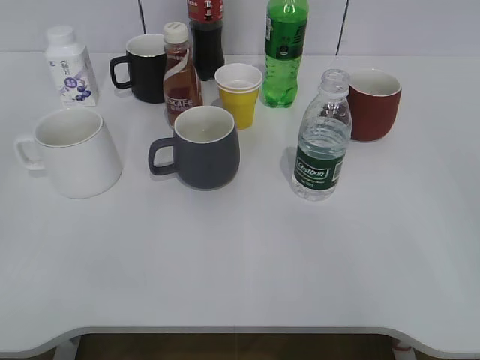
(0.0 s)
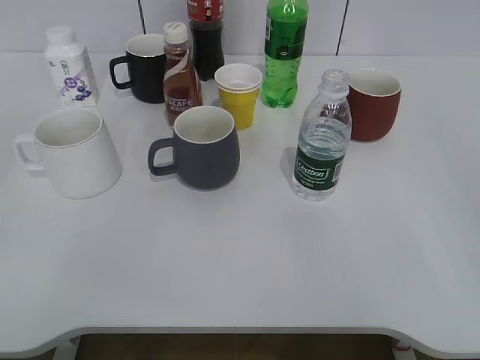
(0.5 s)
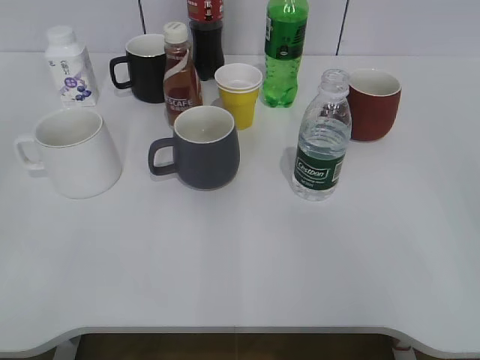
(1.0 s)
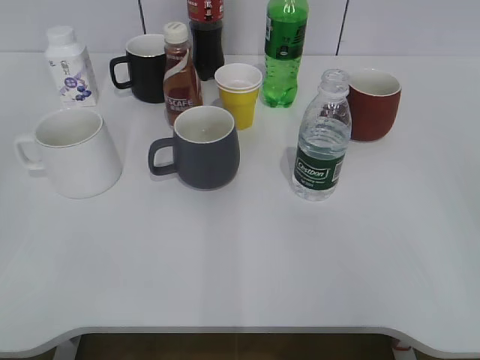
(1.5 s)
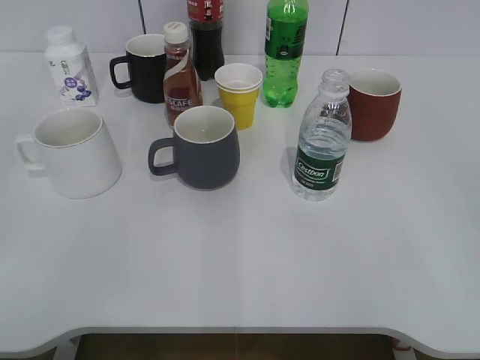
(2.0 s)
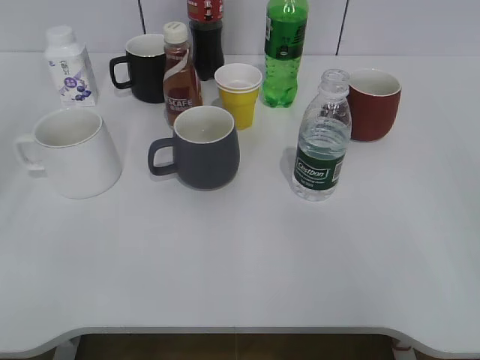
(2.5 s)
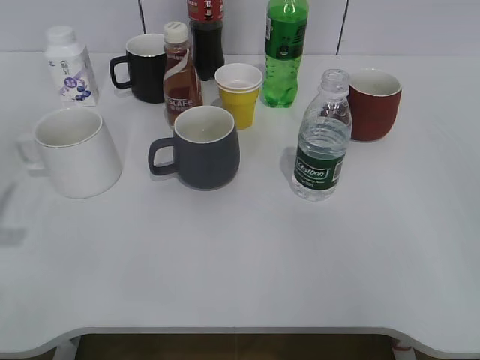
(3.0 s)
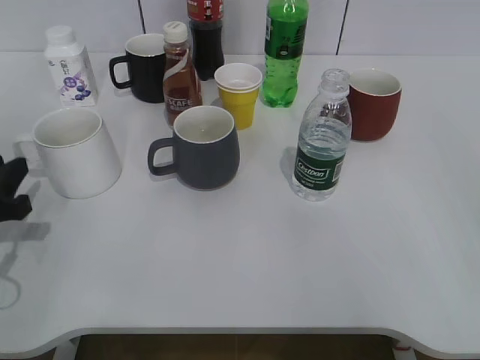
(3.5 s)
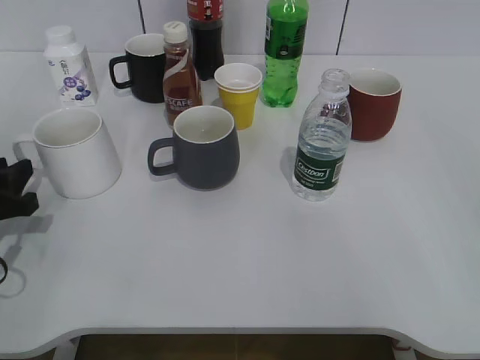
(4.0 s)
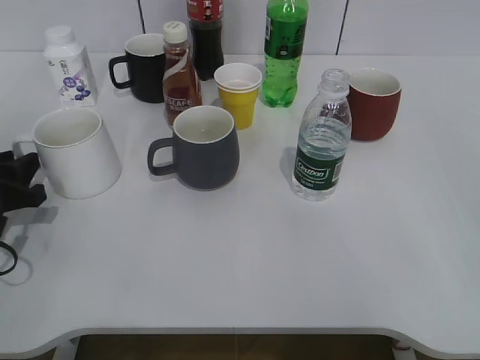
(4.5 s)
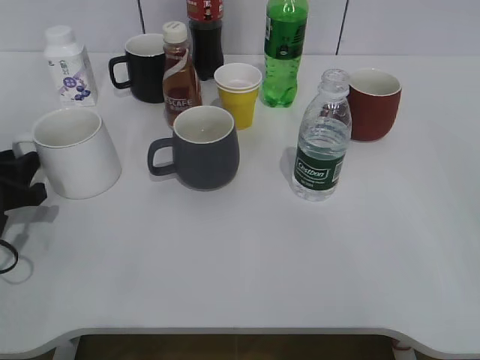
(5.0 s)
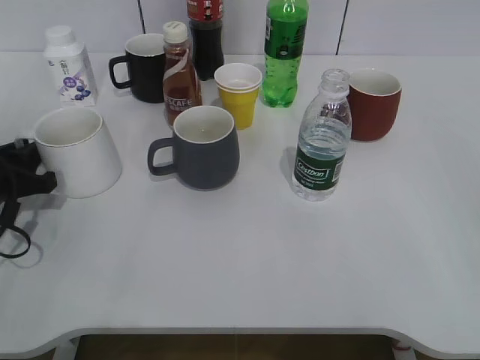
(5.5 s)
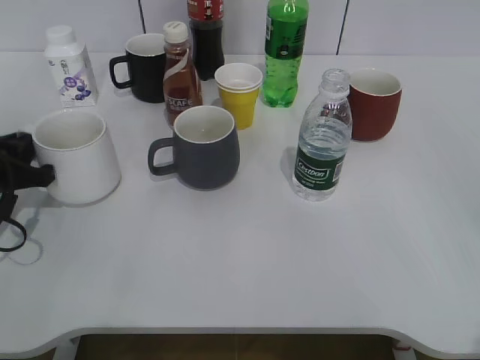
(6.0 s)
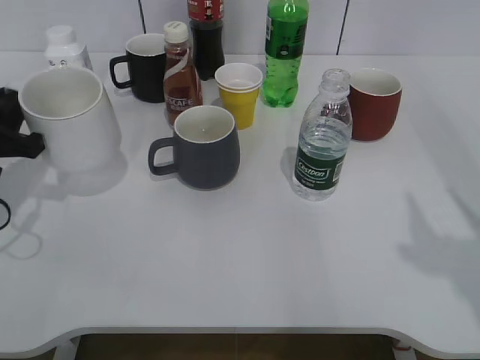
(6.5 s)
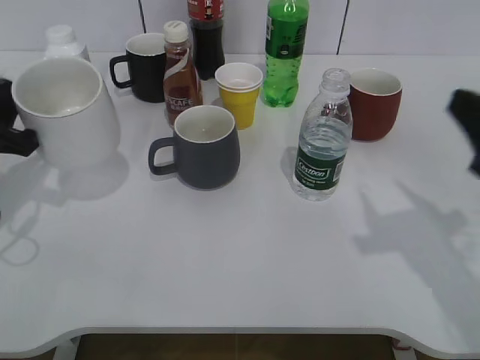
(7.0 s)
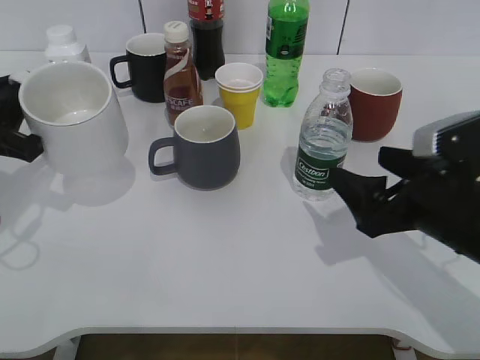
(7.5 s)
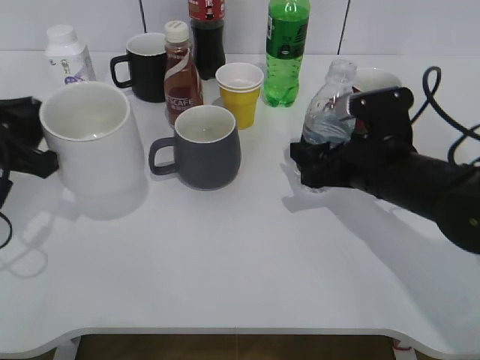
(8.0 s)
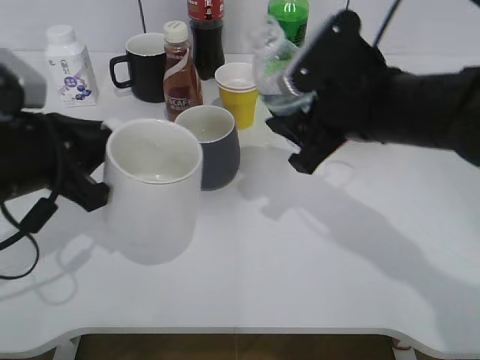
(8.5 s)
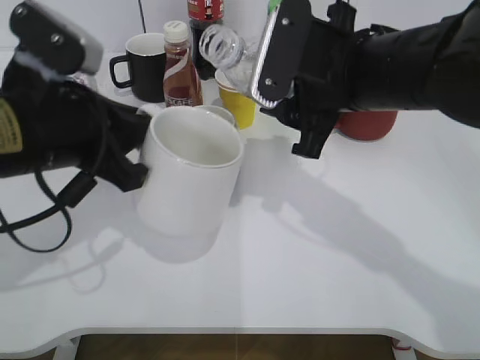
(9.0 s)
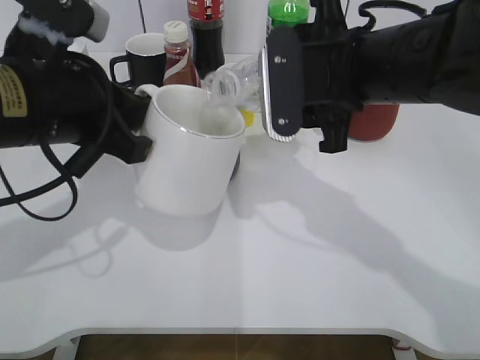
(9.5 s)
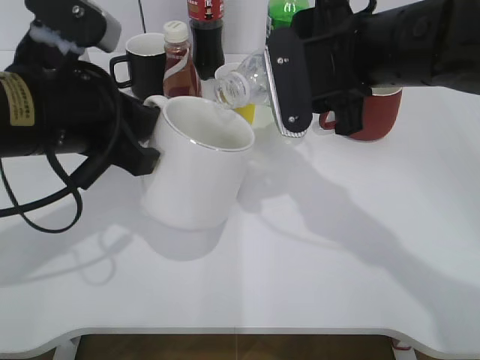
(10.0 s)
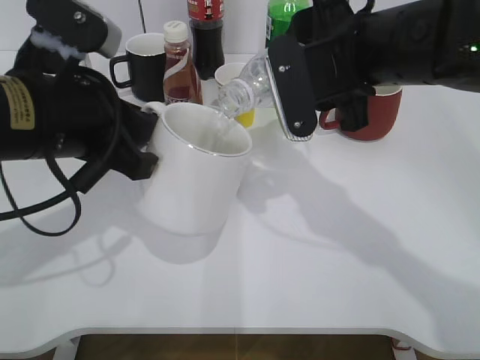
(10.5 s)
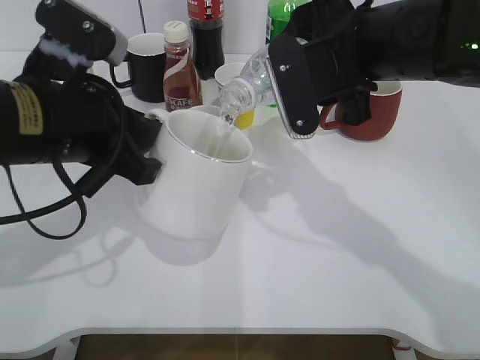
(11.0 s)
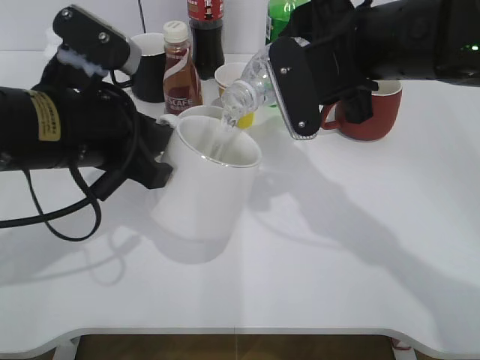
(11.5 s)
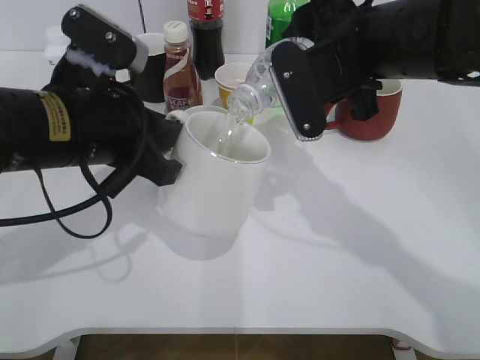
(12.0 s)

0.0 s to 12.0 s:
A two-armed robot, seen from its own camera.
Step, 2.0 to 5.5 s: Grasp the white cup with left gripper.
Step, 6.0 to 6.5 s: Lift the white cup with left gripper.
Step, 7.0 to 7.5 s: Grasp the bottle with water with right gripper.
2.0 to 4.0 s: The left gripper is displaced forward and downward by about 30 cm.
4.0 to 6.0 s: The left gripper closes.
6.0 to 8.0 s: The right gripper goes about 35 cm forward, downward and to the left, and closes, then opens again. Meanwhile the left gripper heads upward, covering roughly 5 cm.
8.0 to 10.0 s: The right gripper heads upward and to the left, covering roughly 15 cm, and closes up. The left gripper travels to the right and upward by approximately 15 cm.
10.0 to 12.0 s: The grippers stay close to where they were, moving slightly.

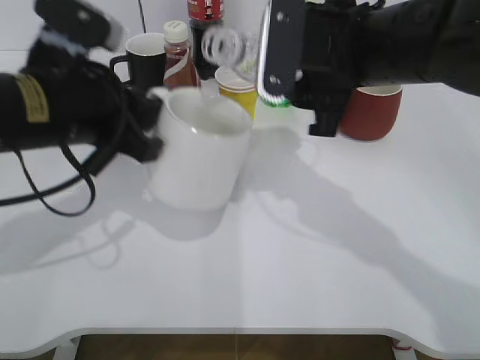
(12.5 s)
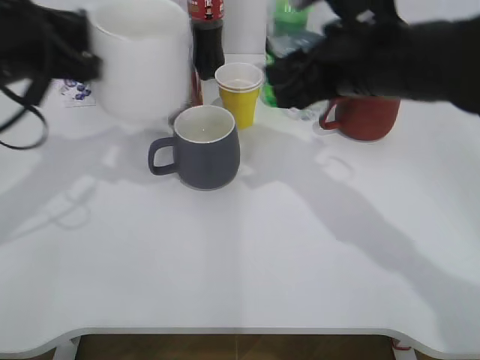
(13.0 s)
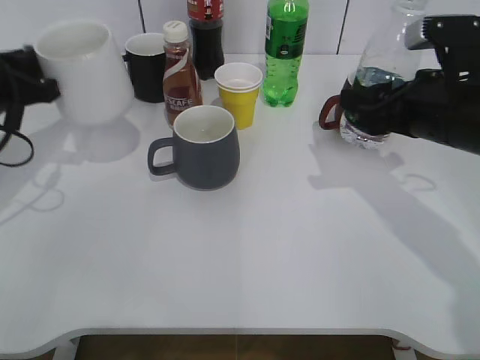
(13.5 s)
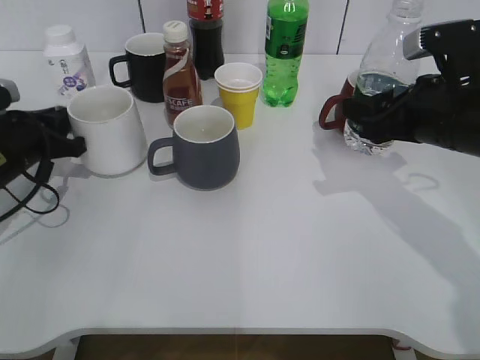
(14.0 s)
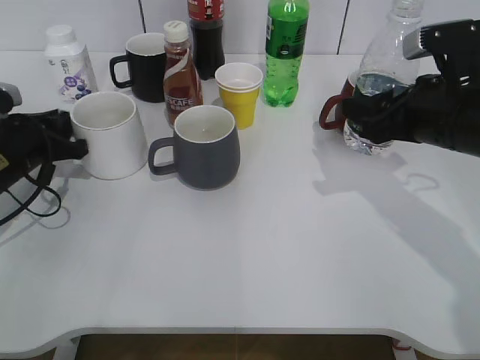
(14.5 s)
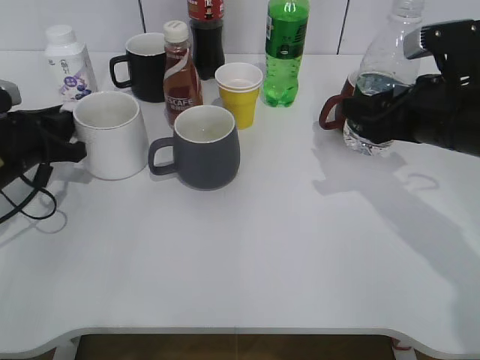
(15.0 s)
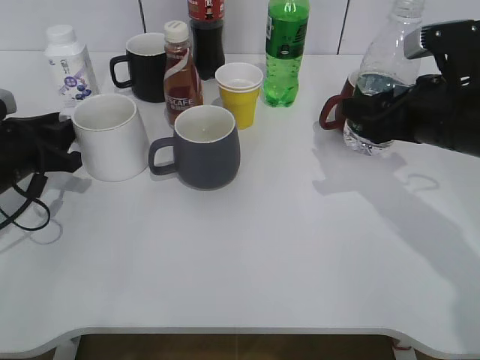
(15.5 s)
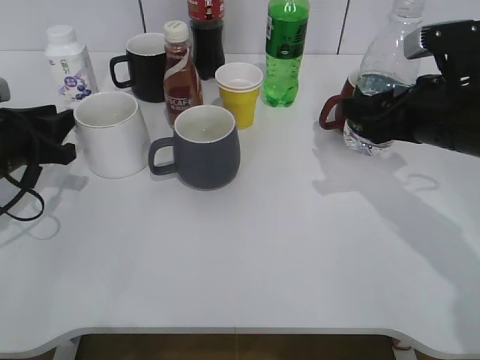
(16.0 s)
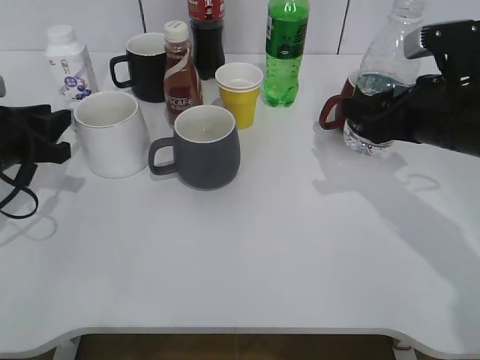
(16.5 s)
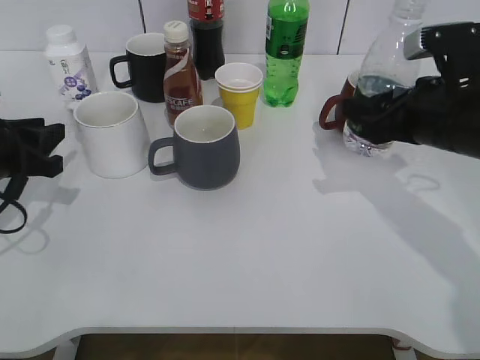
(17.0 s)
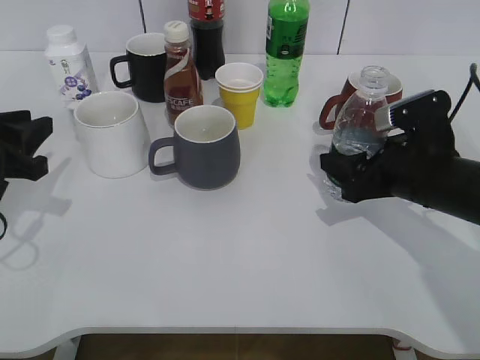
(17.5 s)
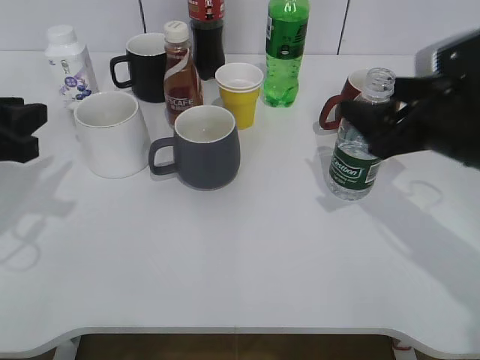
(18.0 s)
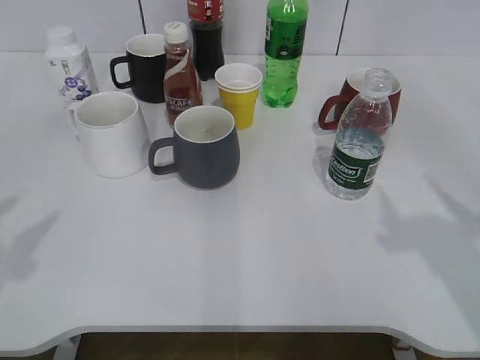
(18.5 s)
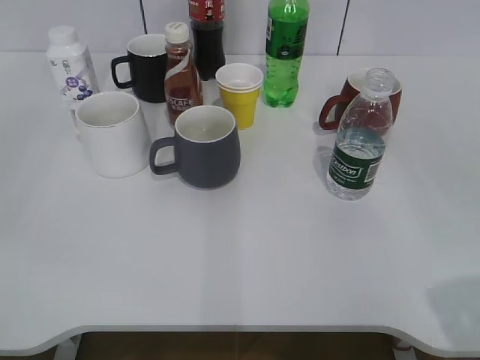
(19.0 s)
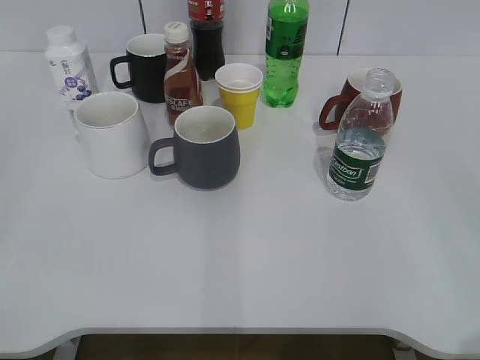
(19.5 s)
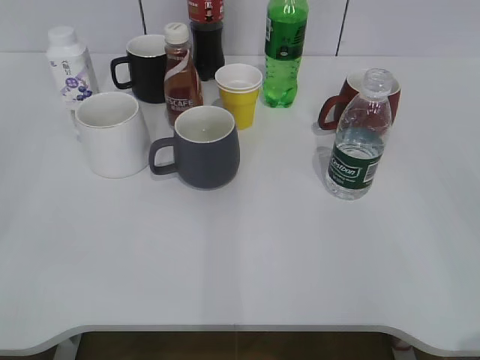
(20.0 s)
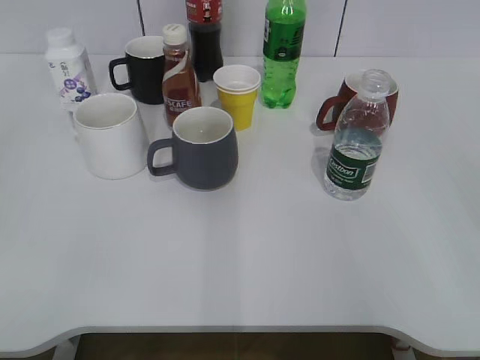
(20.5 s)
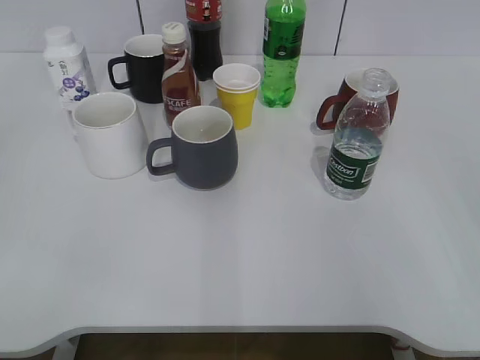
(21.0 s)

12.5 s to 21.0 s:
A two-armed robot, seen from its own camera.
Step, 12.5 to 14.5 s: Place the white cup on the table with left gripper.
Step, 15.0 to 17.5 s: Place the water bottle on the table with right gripper.
12.5 to 14.5 s: The right gripper heads to the right and downward, covering roughly 15 cm. The left gripper goes roughly 20 cm downward, to the left and forward.
14.5 to 16.5 s: The grippers move only a little.
16.5 to 19.0 s: The grippers both shift backward and upward by some 30 cm. The left gripper opens its fingers; the right gripper opens.
19.0 to 21.0 s: The right gripper travels backward by about 5 cm; the left gripper shifts by some 5 cm.
